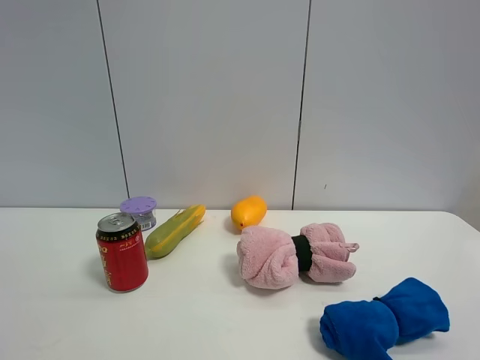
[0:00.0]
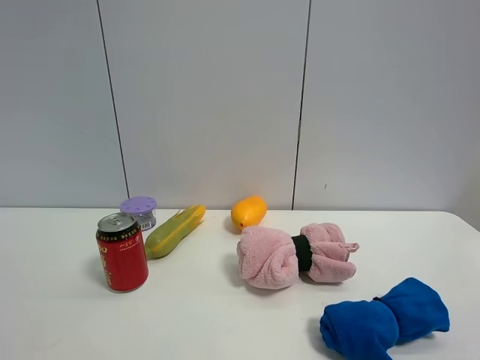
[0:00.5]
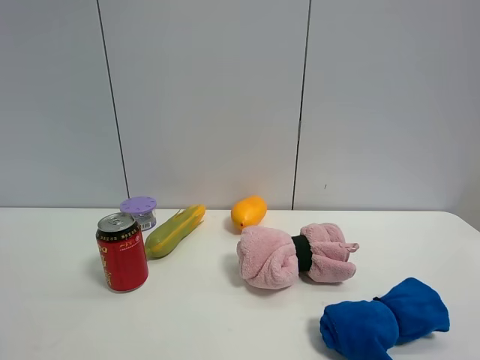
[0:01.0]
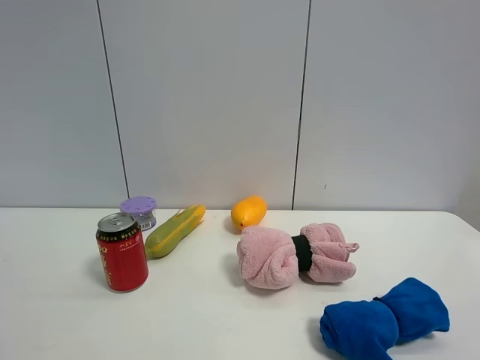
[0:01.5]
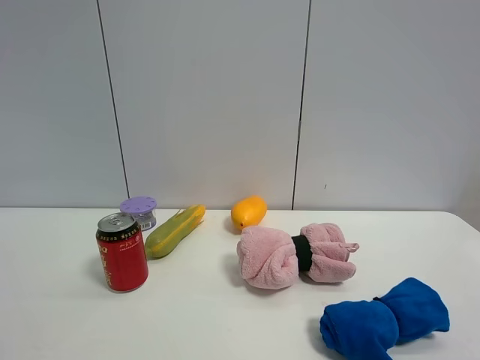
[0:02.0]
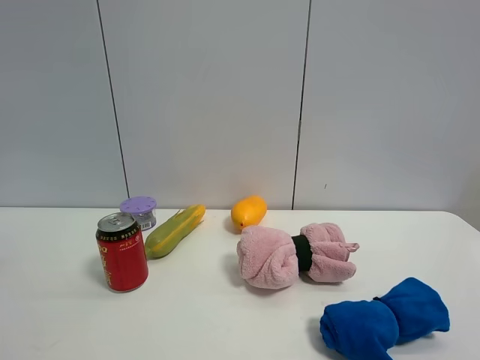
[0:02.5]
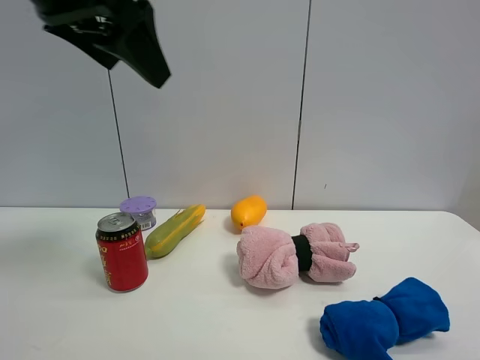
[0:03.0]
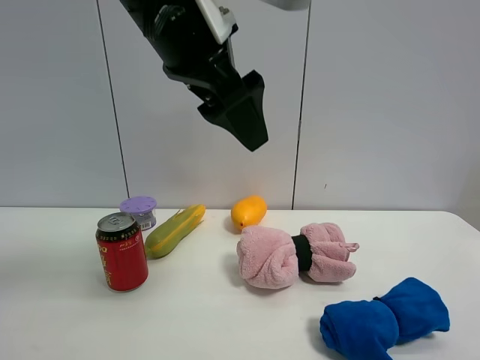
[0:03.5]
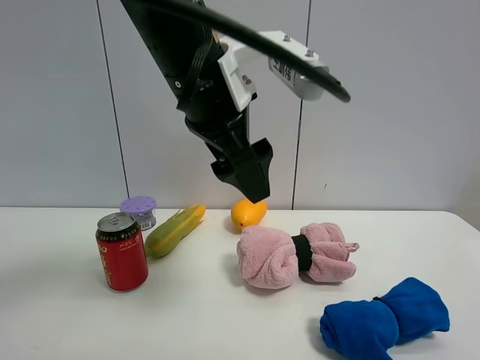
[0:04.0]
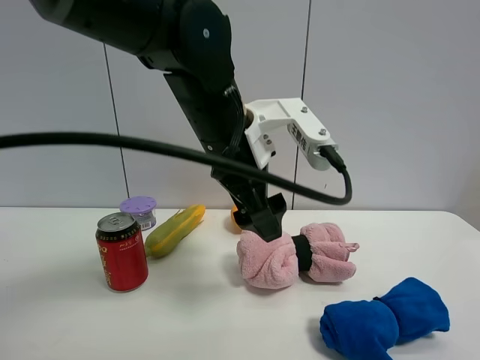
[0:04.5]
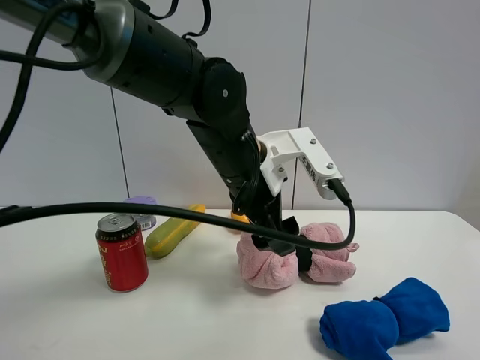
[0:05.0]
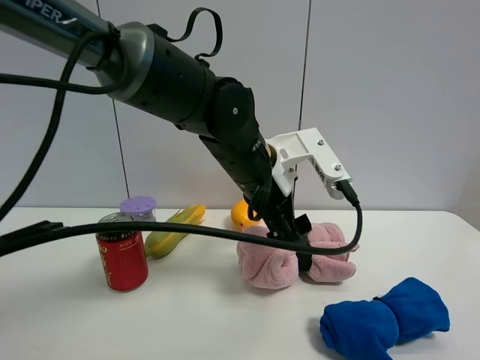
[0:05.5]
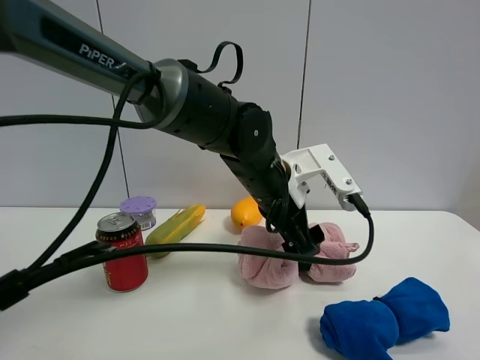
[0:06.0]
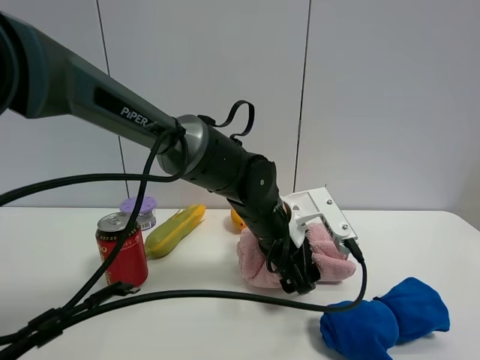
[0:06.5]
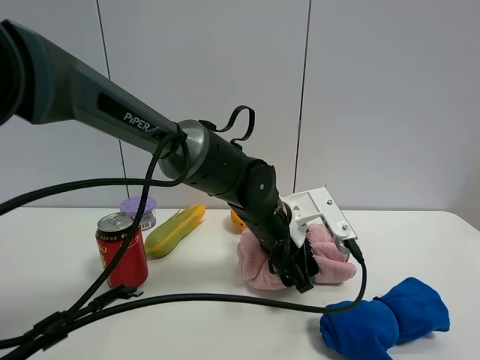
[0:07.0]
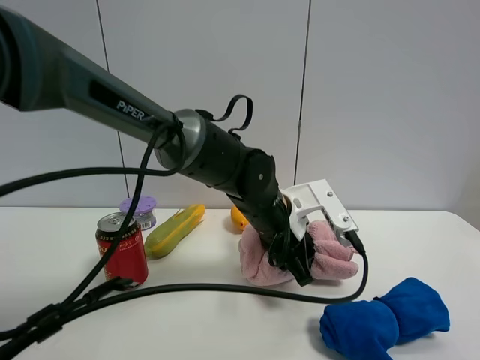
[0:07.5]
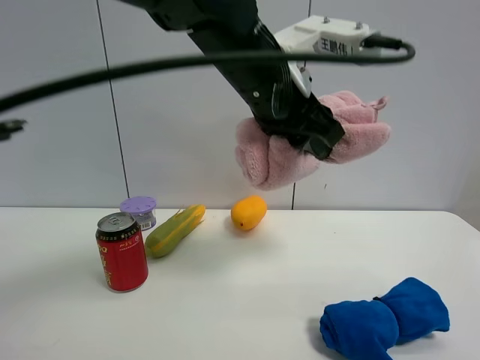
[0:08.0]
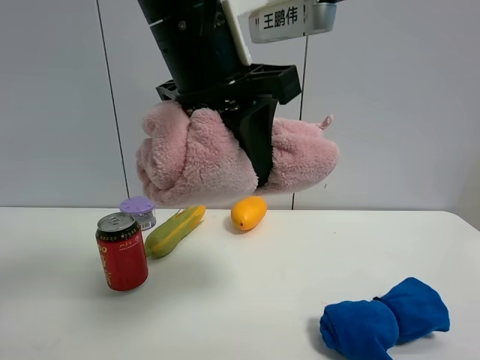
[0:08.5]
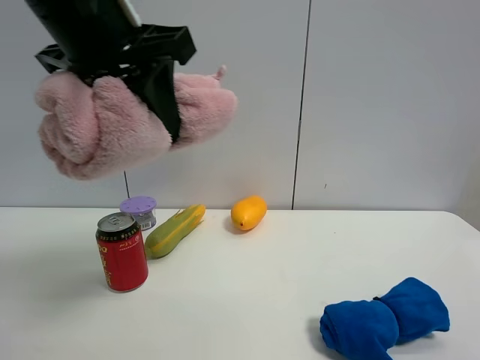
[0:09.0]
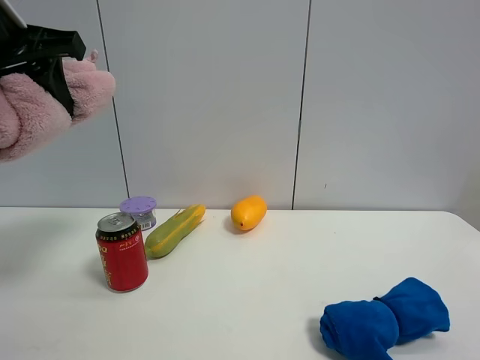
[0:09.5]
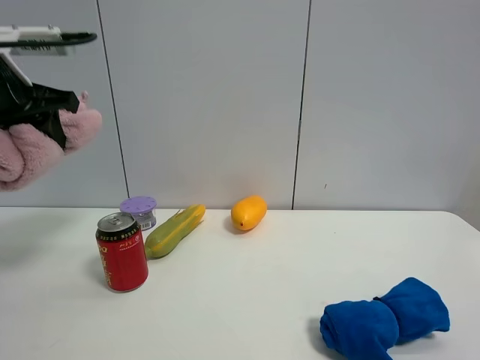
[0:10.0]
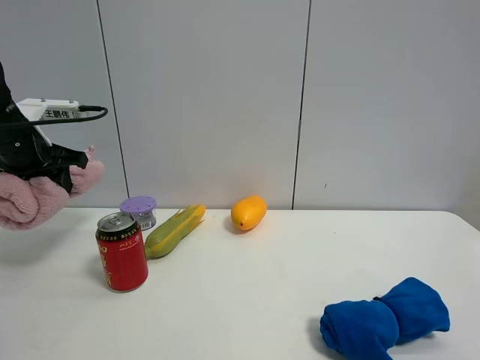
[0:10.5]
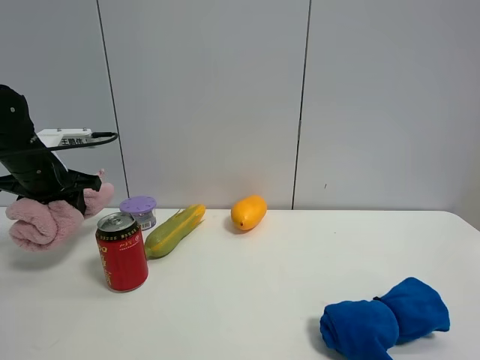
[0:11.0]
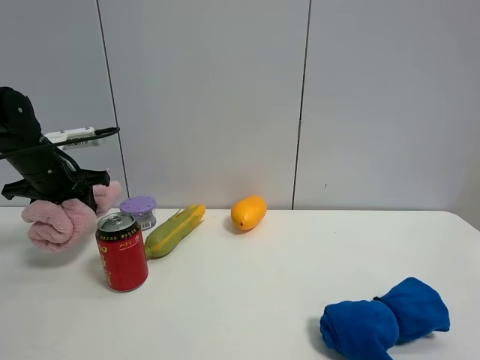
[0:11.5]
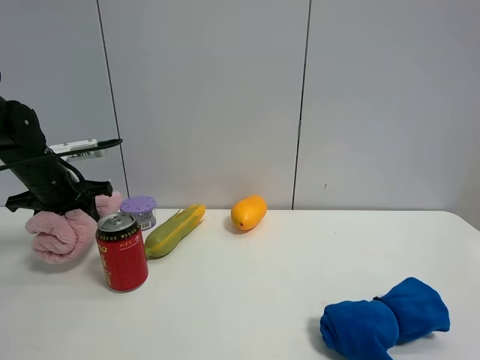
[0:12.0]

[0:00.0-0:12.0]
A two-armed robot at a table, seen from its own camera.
Task of the whole recording: the gripper move the object.
Step, 0:00.0 to 0:07.0: Grasp the pink towel with the left gripper.
0:02.0 to 0:04.0: The left gripper shifts some 35 cm to the right and forward.
0:04.0 to 0:06.0: The left gripper is displaced downward, to the right and forward by about 15 cm.
0:06.0 to 0:08.0: The left gripper heads upward, covering some 15 cm, and closes its fingers.
0:08.0 to 0:10.0: The left gripper goes roughly 30 cm to the left.
0:10.0 to 0:12.0: The left gripper moves downward and forward, some 15 cm.

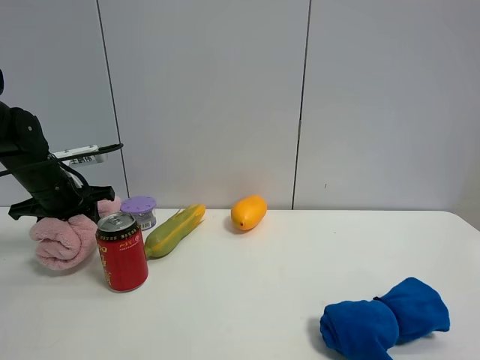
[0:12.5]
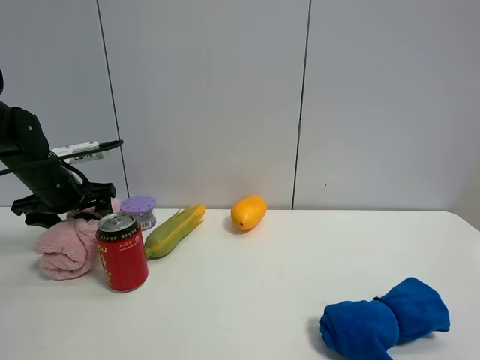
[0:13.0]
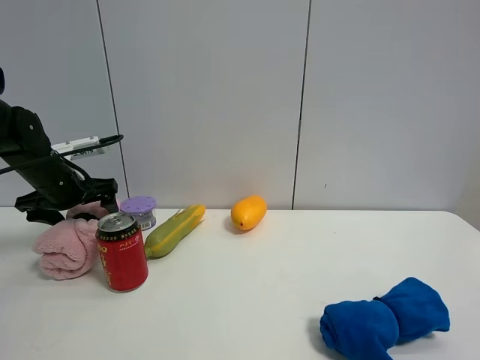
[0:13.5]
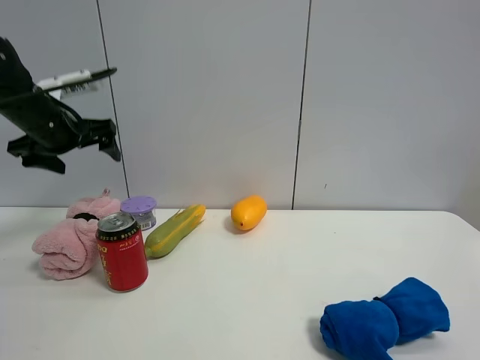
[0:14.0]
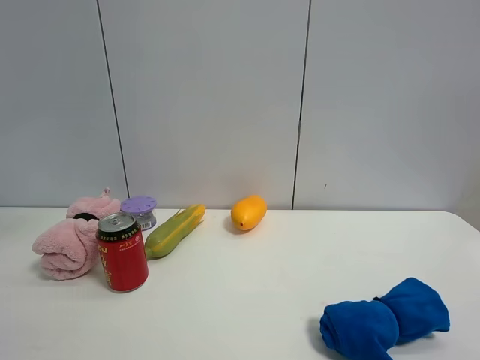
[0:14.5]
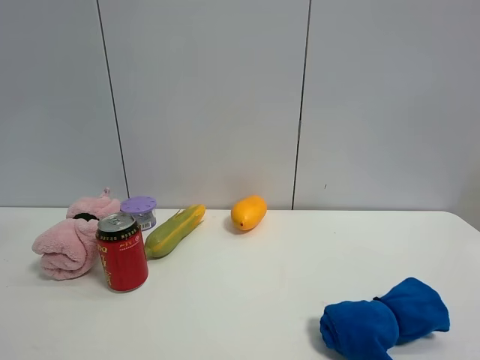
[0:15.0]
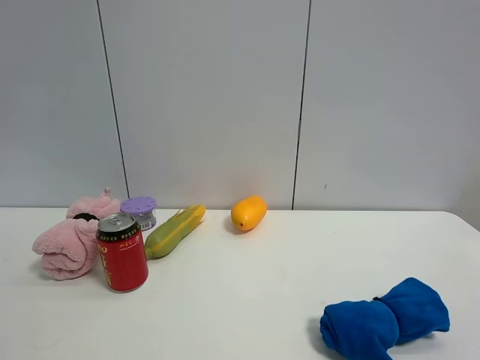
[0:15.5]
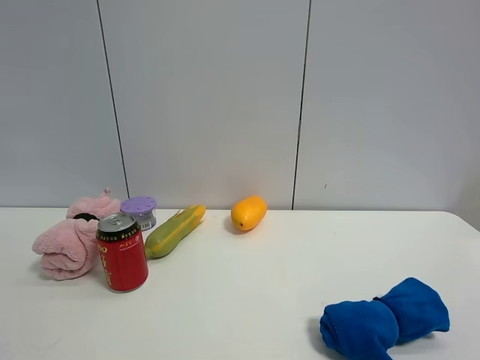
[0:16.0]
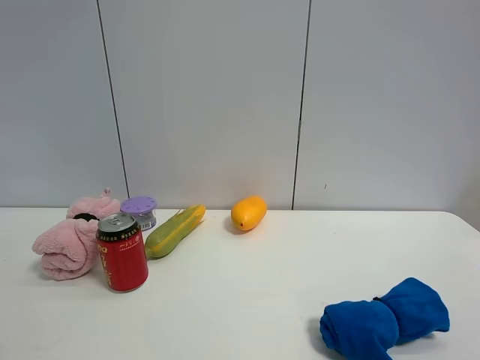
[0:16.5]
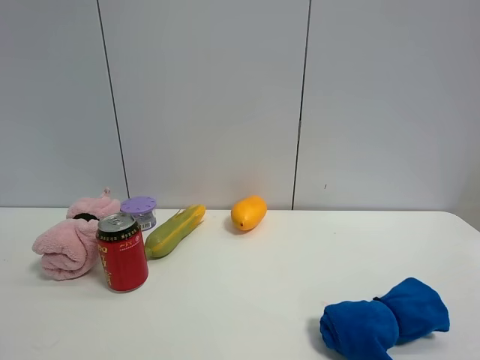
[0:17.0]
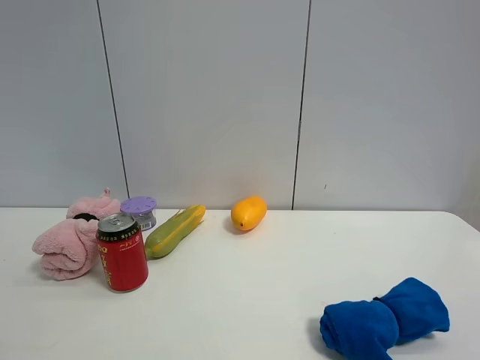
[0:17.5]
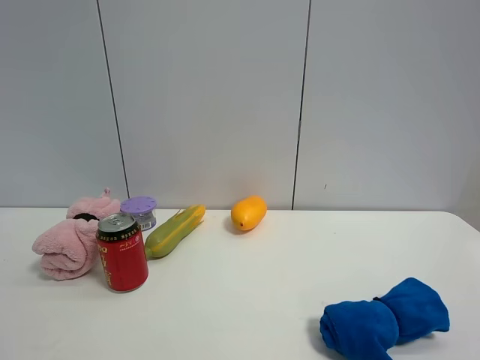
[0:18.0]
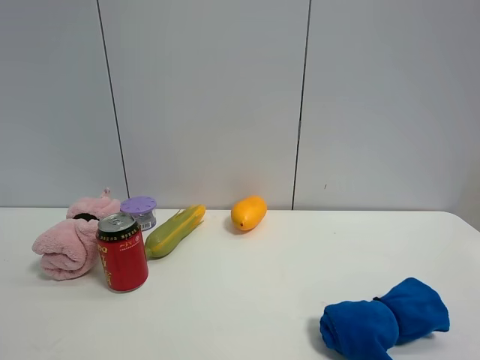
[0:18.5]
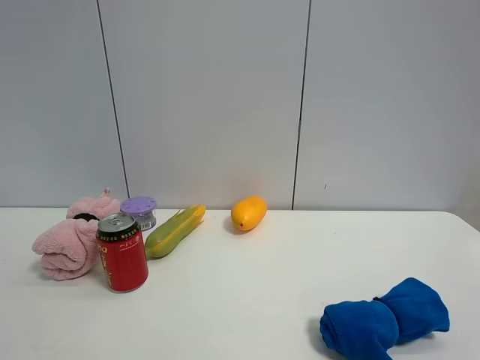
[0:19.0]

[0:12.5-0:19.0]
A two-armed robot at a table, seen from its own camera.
Task of the whole recording: the gripper move the object.
0:12.5 to 0:14.5: The left gripper moves upward and backward, approximately 35 cm, and opens up.
